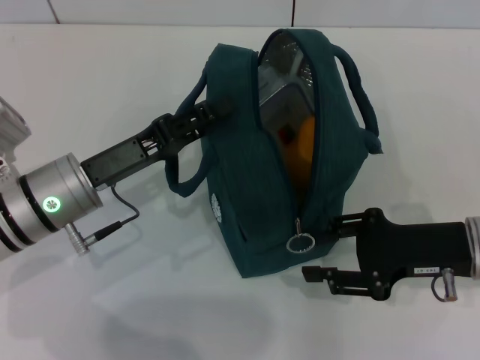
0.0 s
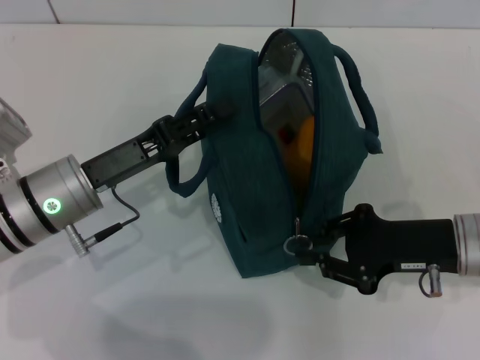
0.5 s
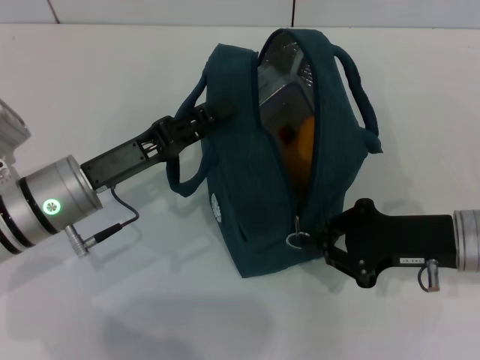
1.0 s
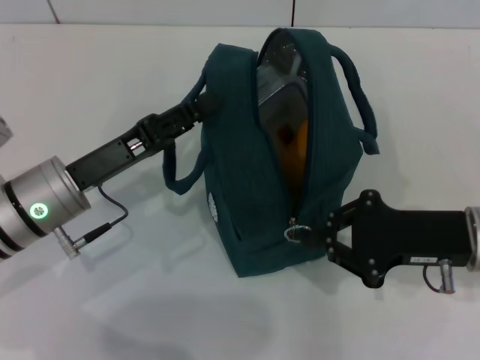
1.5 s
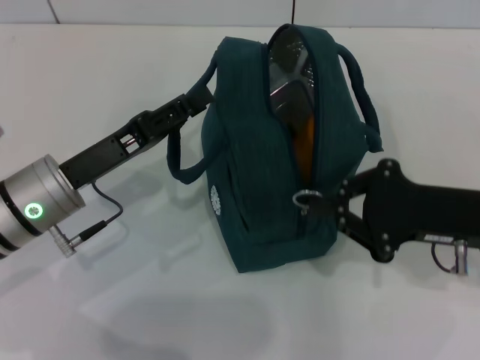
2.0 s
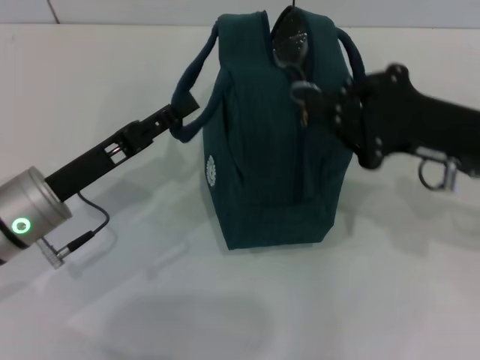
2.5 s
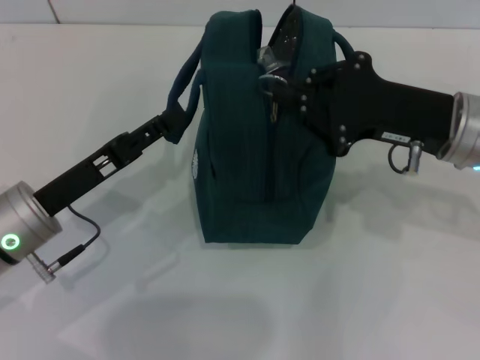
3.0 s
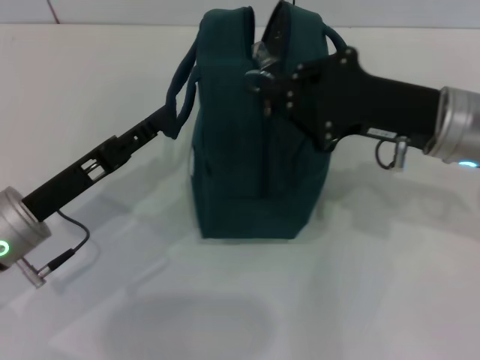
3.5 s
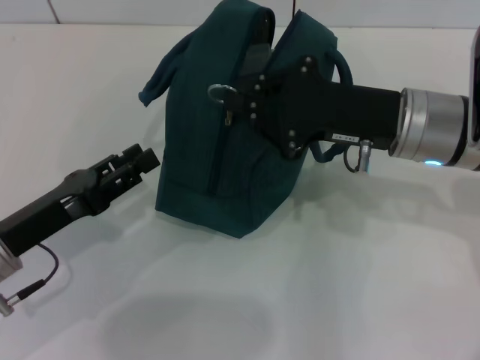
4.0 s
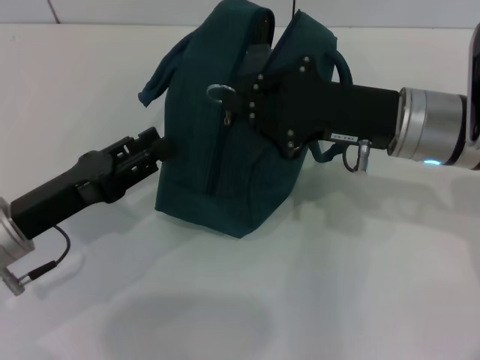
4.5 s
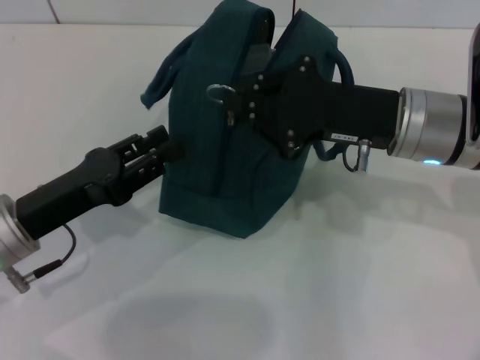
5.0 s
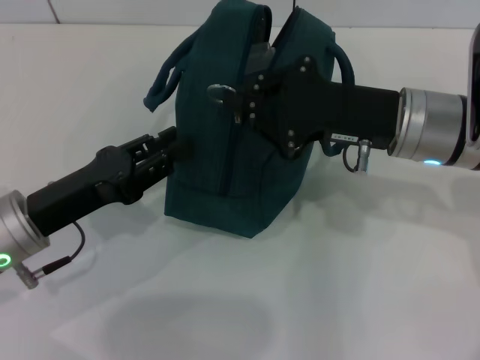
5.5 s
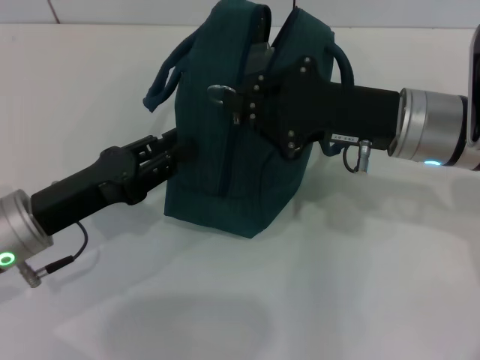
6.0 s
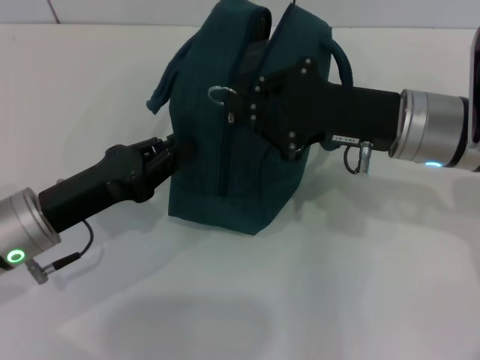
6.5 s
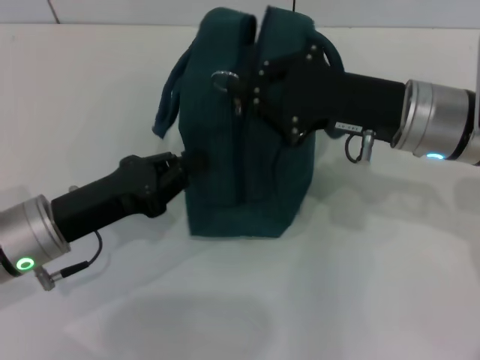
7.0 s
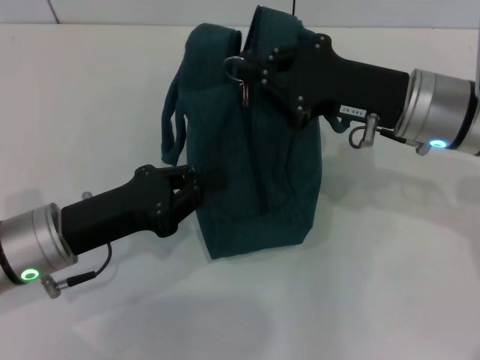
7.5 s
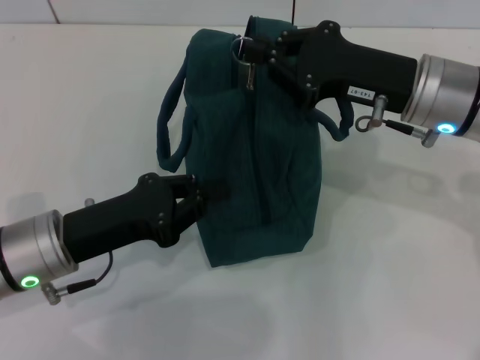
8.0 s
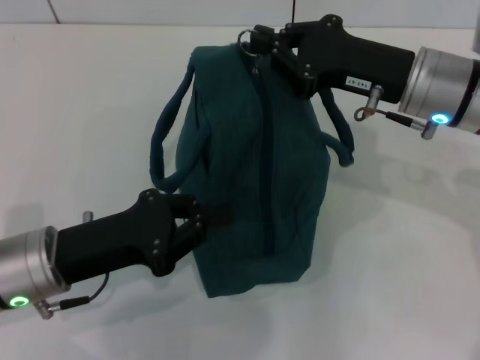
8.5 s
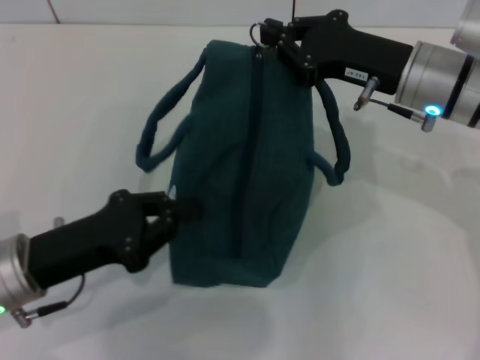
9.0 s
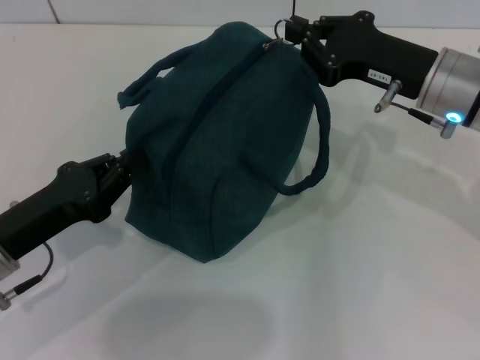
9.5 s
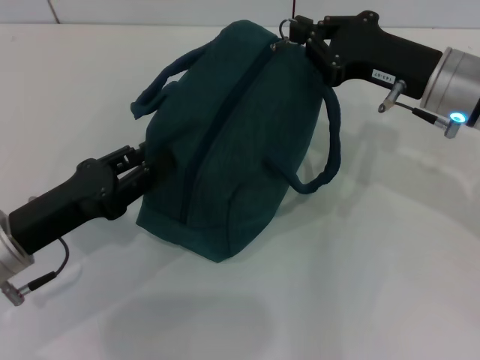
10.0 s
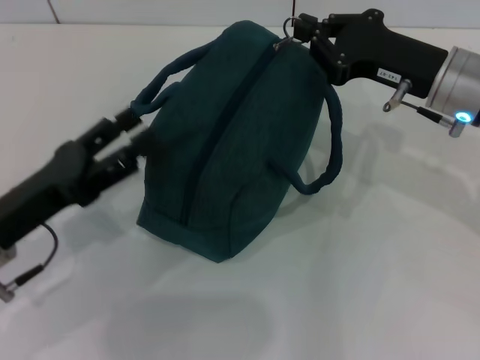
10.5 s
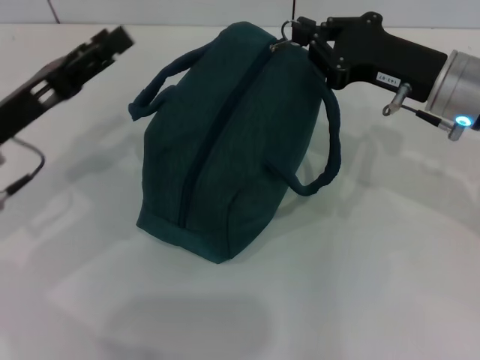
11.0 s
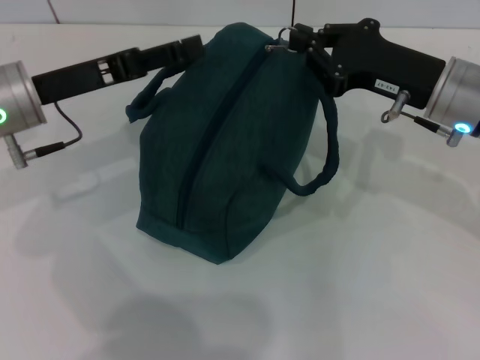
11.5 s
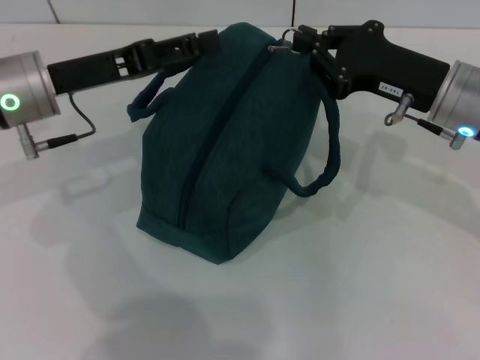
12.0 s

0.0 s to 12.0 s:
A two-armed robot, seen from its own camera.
Step, 0.0 to 2.0 s: Hold the lunch bag with your left hand.
0.0 to 2.0 s: The right gripper closes its fingers.
2.0 to 4.0 s: The left gripper heads backward, covering approximately 5 cm. Meanwhile the right gripper goes some 10 cm to the left and forward.
4.0 to 6.0 s: There are only small adjustments of the grippers.
6.0 to 8.0 s: The left gripper closes up.
10.0 to 12.0 s: The left gripper is displaced forward and upward by roughly 15 cm, and opens.

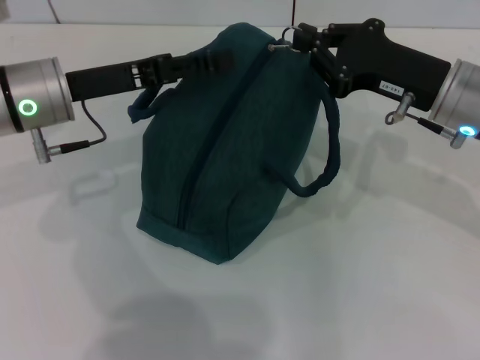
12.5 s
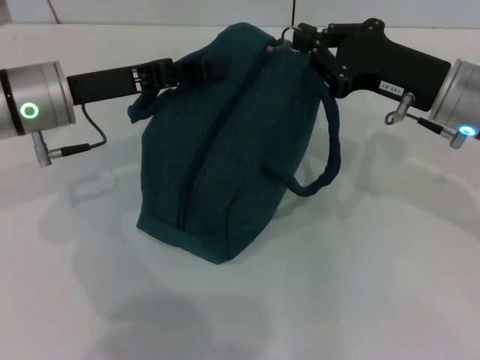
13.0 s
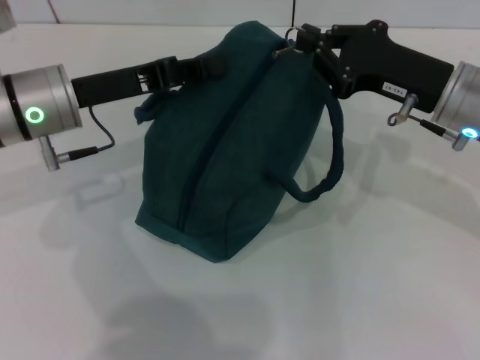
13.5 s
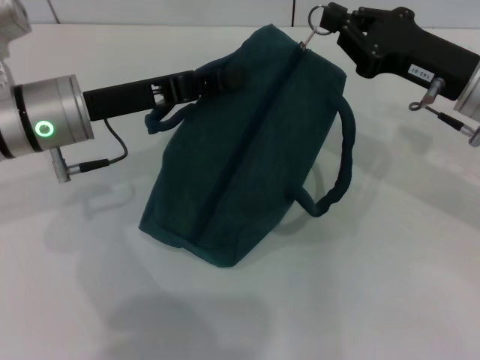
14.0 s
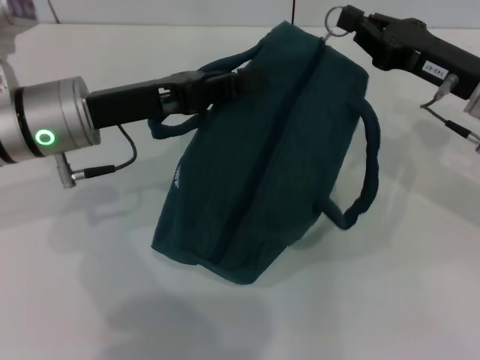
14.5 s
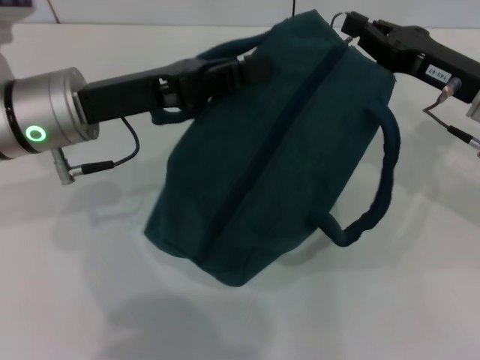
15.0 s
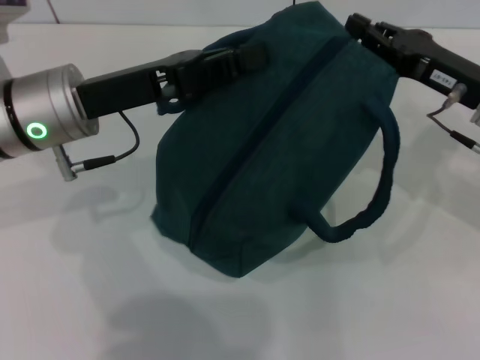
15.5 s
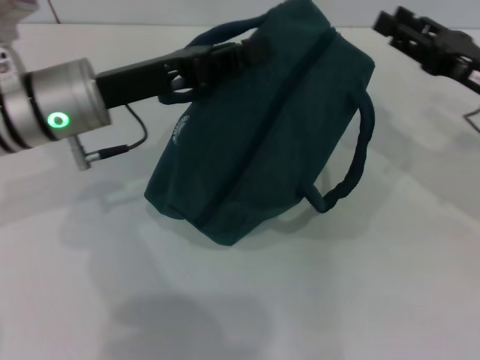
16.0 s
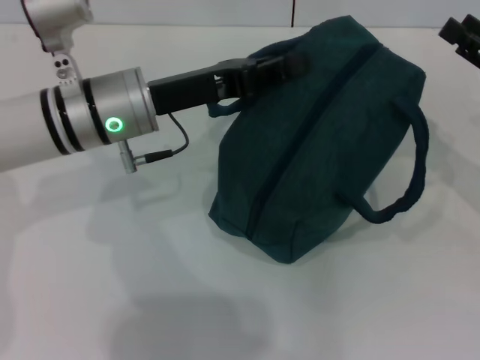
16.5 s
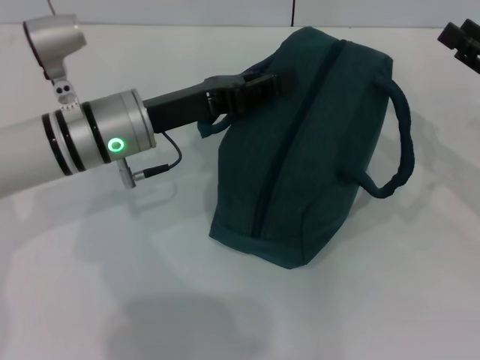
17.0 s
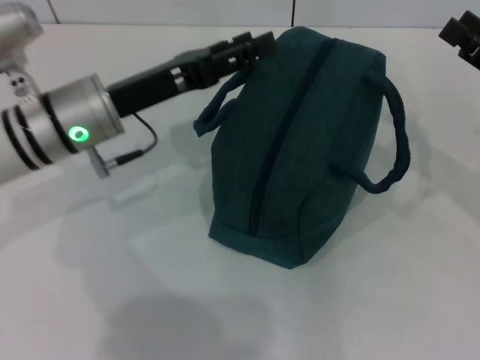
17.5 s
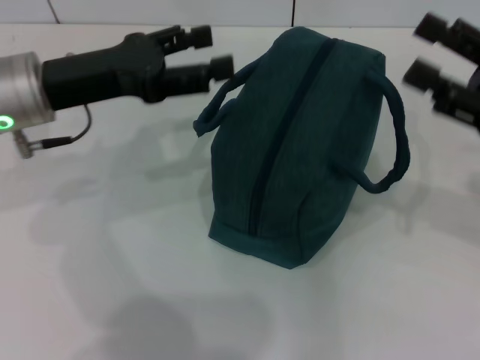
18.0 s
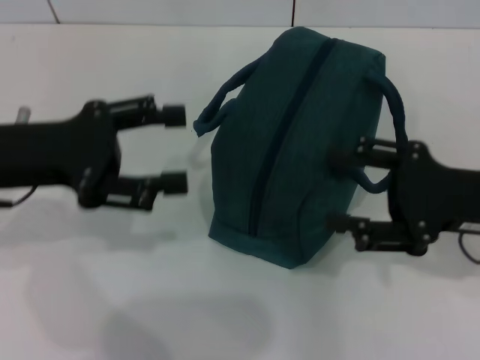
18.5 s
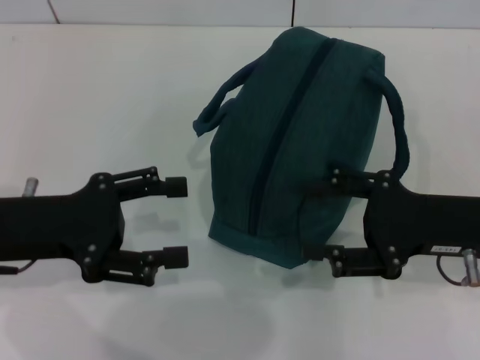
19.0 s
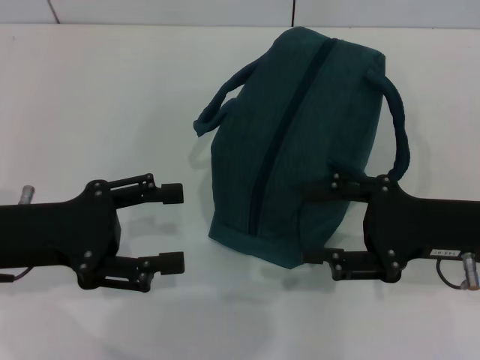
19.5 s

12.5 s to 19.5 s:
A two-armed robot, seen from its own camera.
Step, 12.5 to 16.0 s: Zip up the lunch bag with your right hand.
Step, 16.5 to 17.5 s: Hold the lunch bag with your left hand.
12.5 to 14.5 s: The left gripper closes.
16.0 to 17.5 s: The right gripper ends up about 5 cm from where it was, and opens, while the left gripper opens up.
17.5 to 19.5 s: The right gripper moves to the left, roughly 10 cm; the left gripper goes about 15 cm backward and to the left.

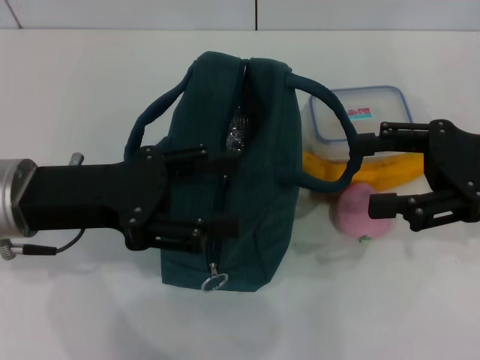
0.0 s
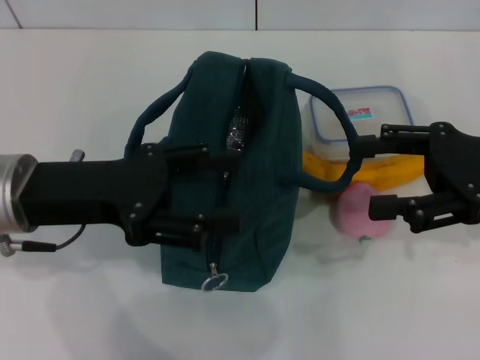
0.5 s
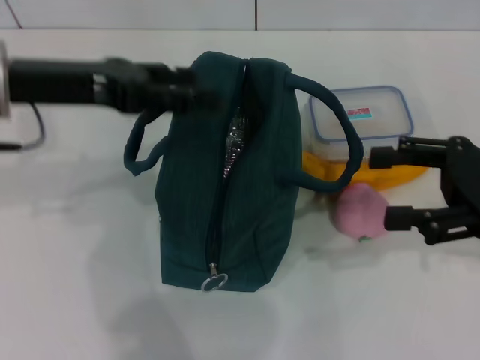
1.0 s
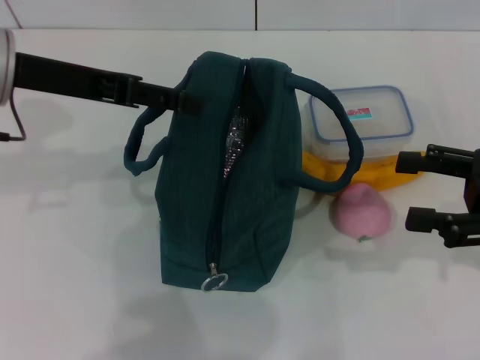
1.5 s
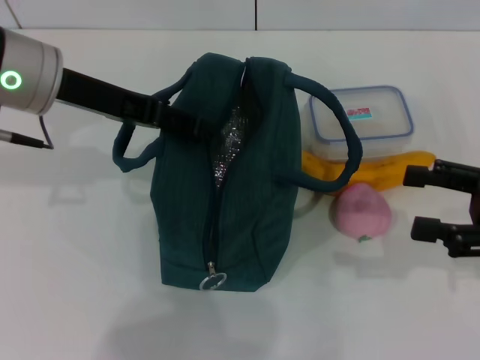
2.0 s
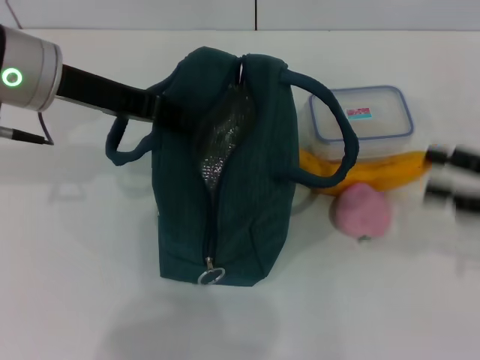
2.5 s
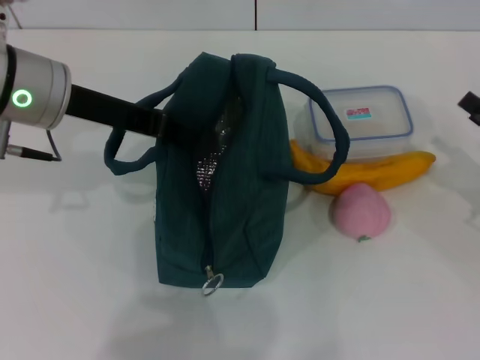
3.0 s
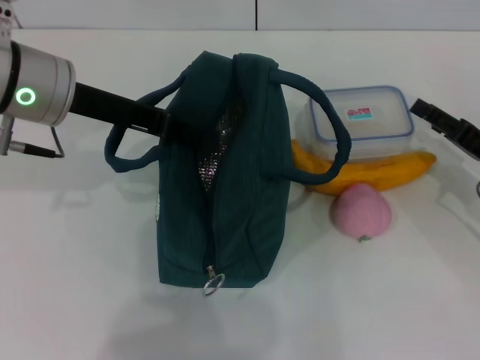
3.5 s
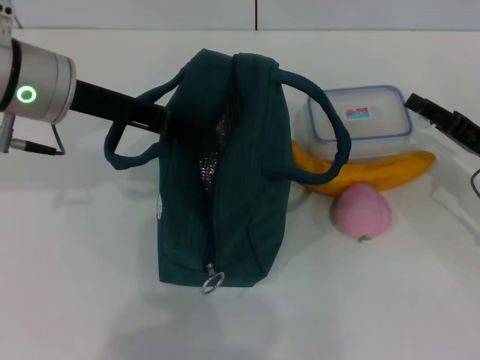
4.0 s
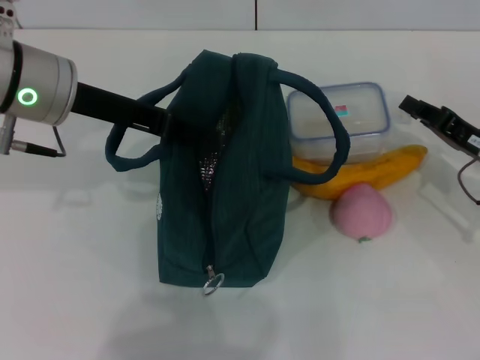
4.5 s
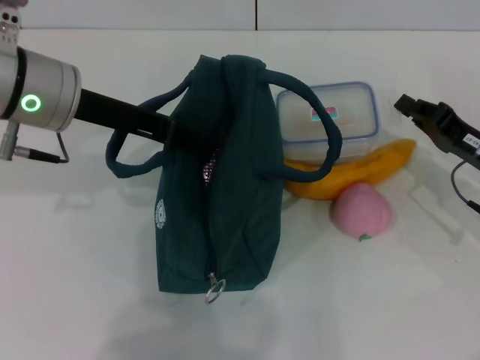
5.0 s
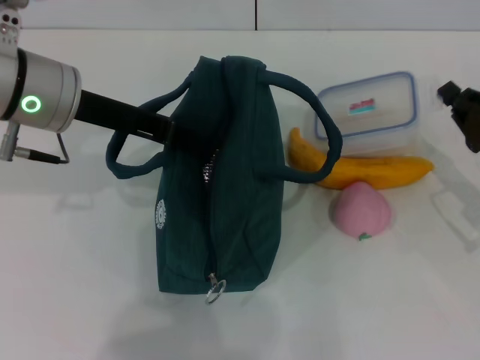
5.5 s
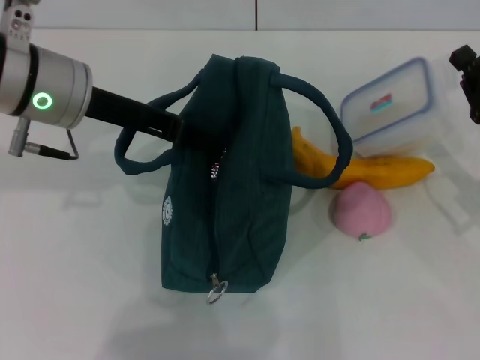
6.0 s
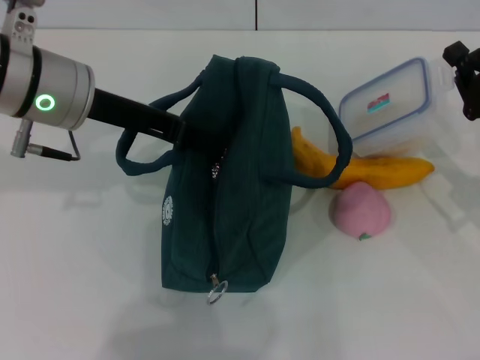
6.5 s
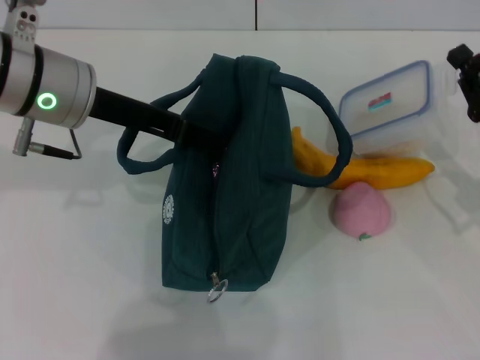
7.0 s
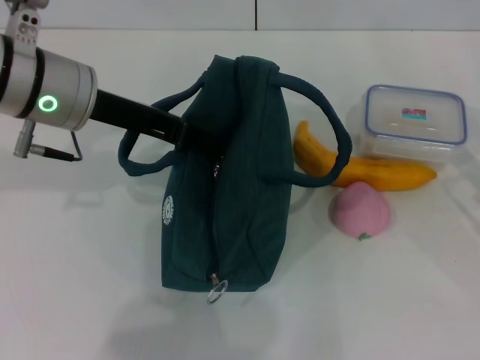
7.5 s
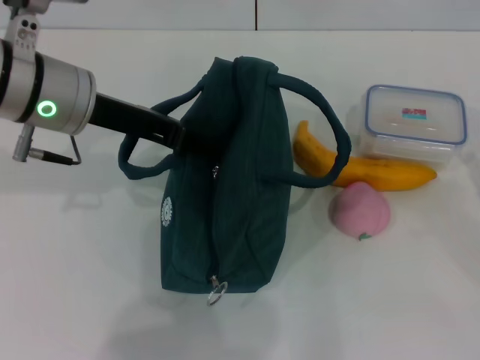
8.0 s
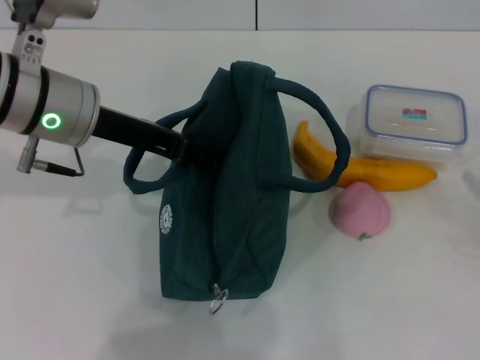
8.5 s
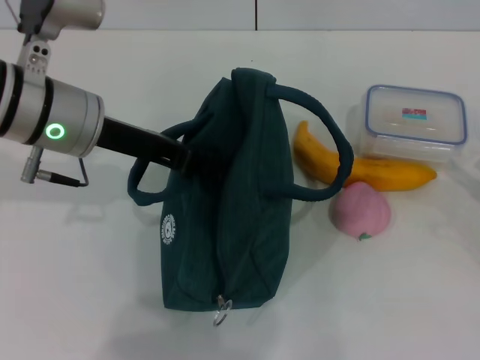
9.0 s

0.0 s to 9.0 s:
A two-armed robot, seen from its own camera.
Step, 0.0 to 3.0 s: Hold the lunch bag with your left hand.
0.0 to 2.0 s: The left gripper shifts about 10 cm forward and upward. The right gripper ends up some 10 cm from where it was.
2.0 to 4.5 s: The left gripper closes; the right gripper is displaced downward and forward by roughly 10 cm, and closes its fingers.
4.5 to 7.0 s: The right gripper closes its fingers.
7.0 to 9.0 s: The right gripper is displaced to the right and backward by about 10 cm, and opens its fingers.
